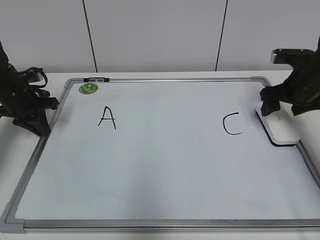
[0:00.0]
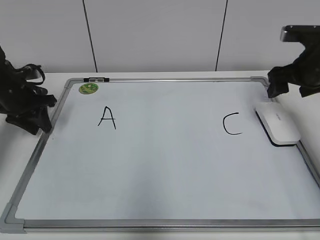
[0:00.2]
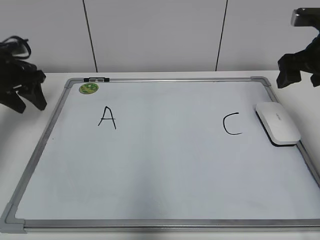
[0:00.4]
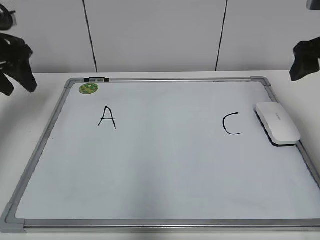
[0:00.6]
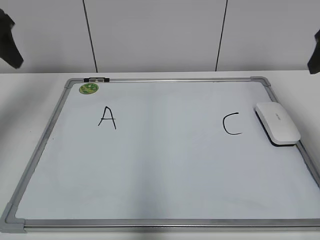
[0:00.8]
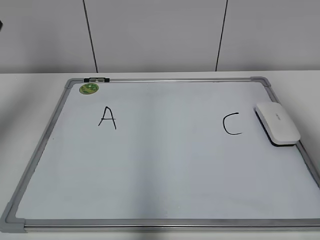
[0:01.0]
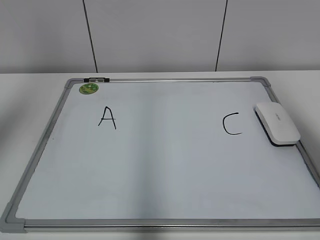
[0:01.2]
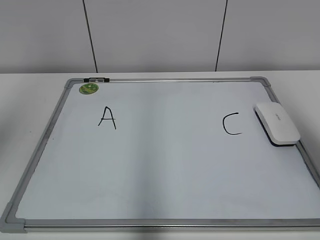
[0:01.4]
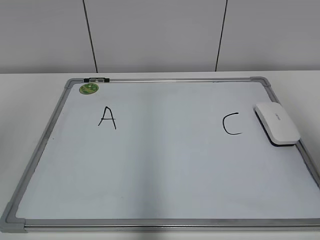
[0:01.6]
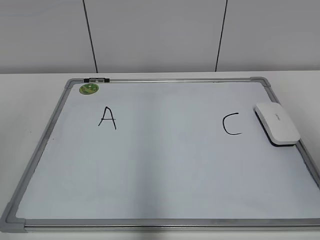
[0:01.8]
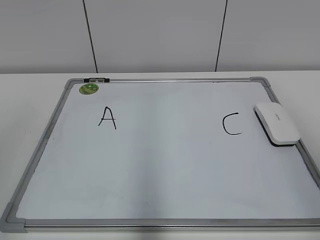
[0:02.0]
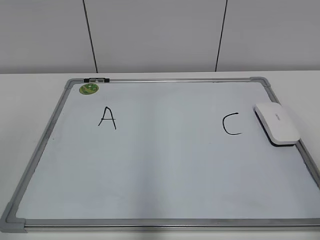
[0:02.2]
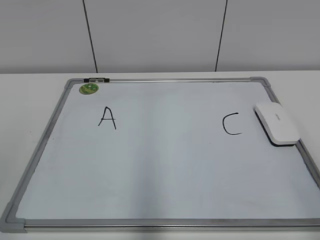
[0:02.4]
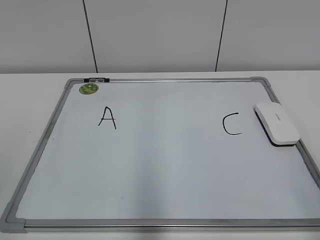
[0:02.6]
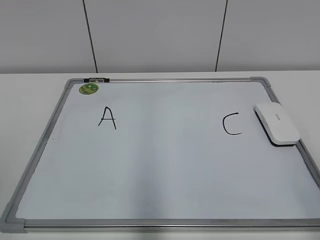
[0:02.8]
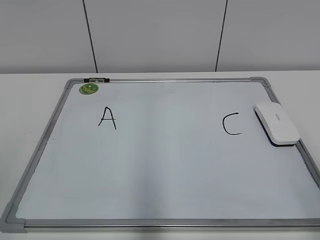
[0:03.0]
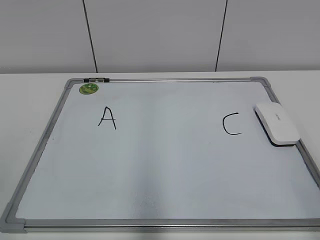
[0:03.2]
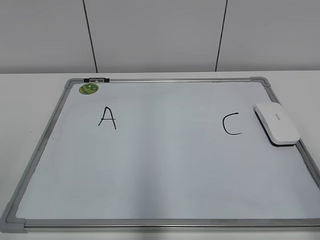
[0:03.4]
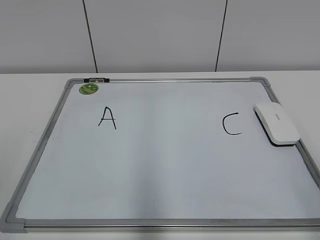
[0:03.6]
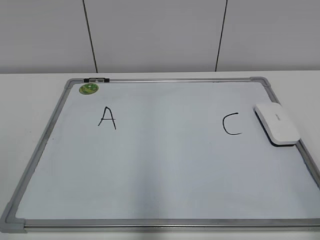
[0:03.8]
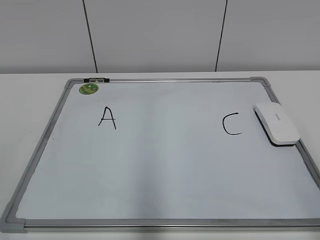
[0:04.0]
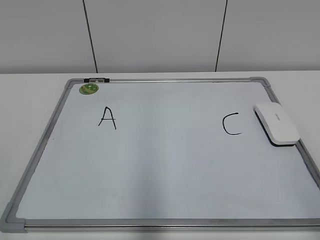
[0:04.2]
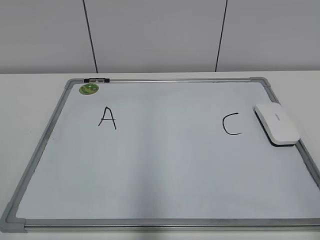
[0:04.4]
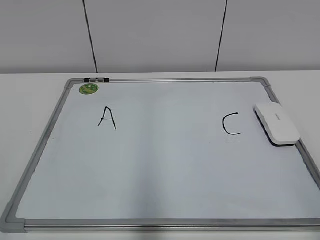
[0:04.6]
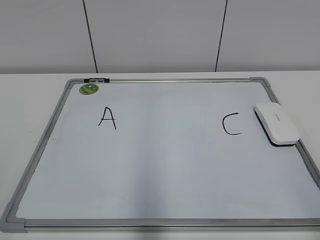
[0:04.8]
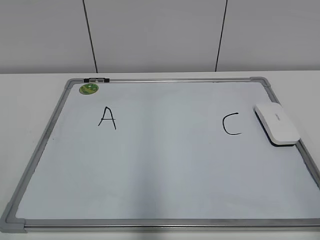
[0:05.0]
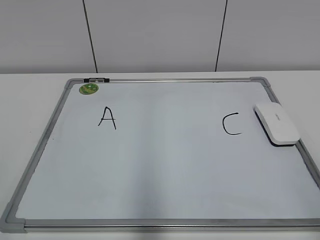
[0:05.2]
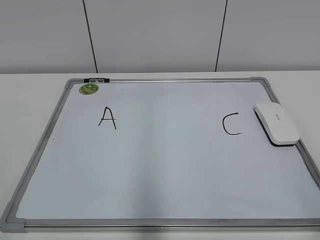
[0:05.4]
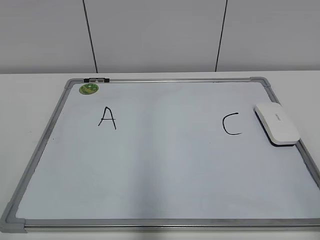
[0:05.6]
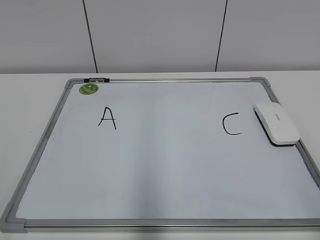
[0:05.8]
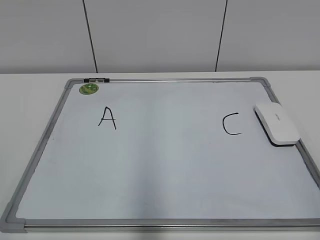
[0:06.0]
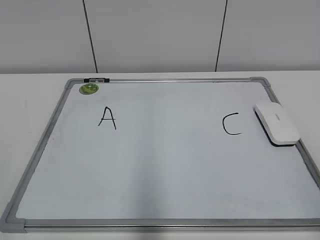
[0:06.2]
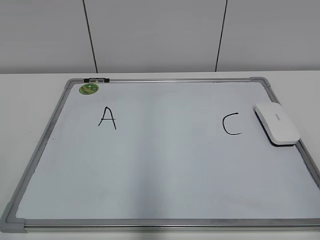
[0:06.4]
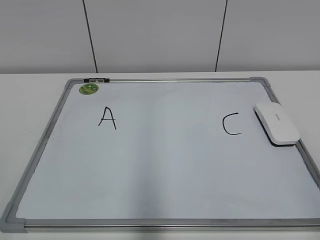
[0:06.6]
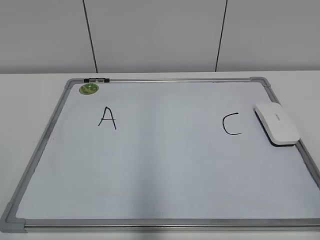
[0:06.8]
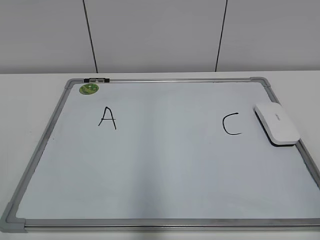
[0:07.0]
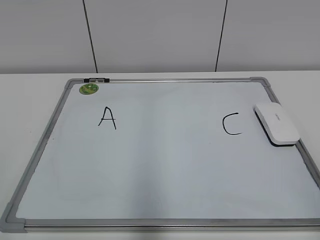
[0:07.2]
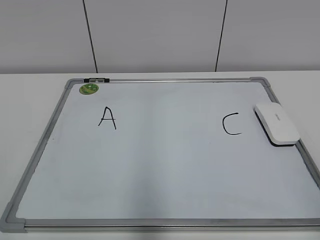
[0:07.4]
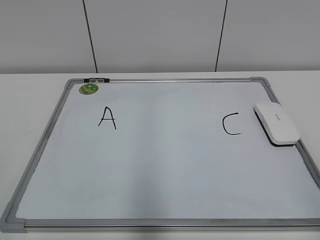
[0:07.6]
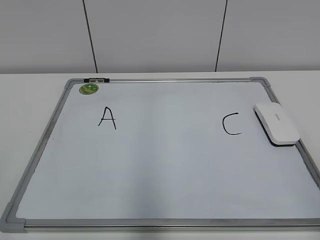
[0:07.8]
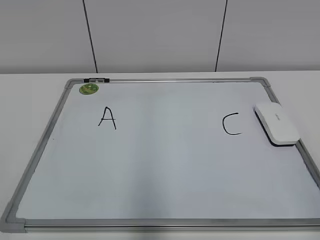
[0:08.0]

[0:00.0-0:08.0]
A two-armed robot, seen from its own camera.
Task of the whole recording: pick up the eraser on the blackboard and erase the letter "B".
0:00.0 to 0:01.6: The two grippers go roughly 40 cm upward and backward. The left gripper opens up.
0:01.6 to 0:03.2: The right gripper is displaced downward and backward by roughly 20 cm.
0:04.8 to 0:08.0: Neither gripper changes place.
